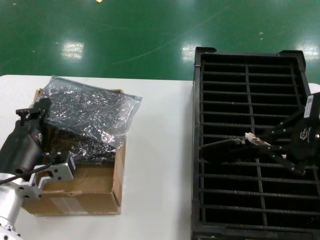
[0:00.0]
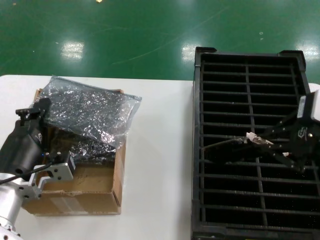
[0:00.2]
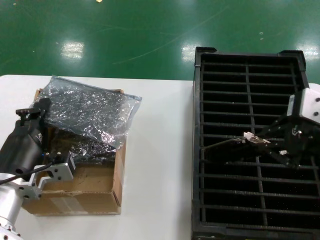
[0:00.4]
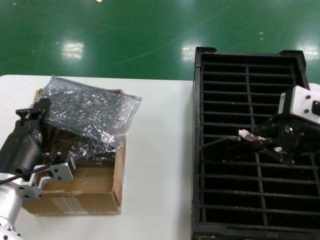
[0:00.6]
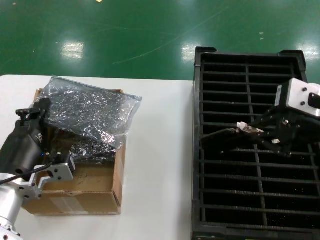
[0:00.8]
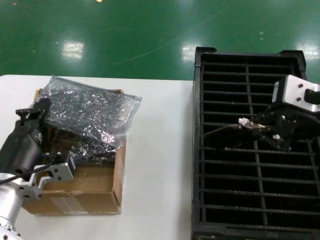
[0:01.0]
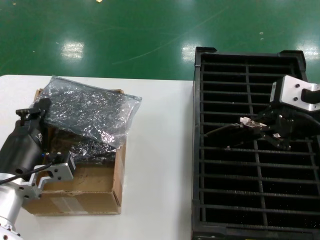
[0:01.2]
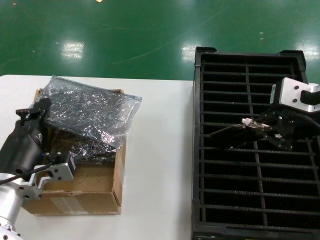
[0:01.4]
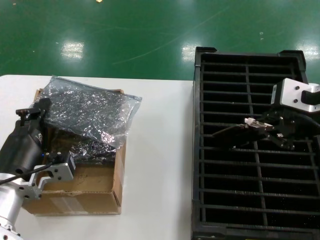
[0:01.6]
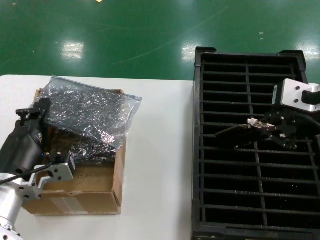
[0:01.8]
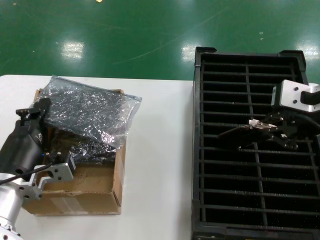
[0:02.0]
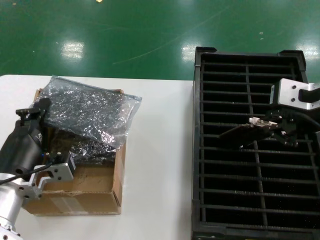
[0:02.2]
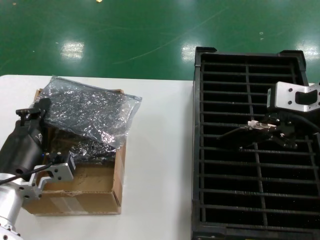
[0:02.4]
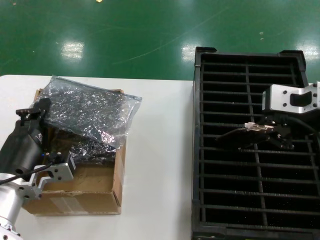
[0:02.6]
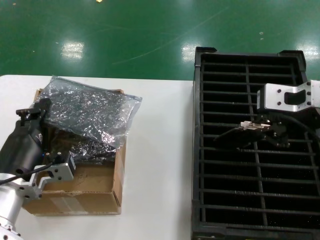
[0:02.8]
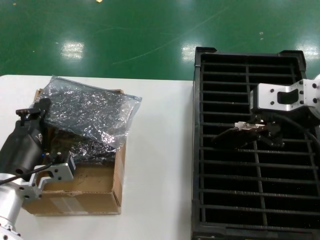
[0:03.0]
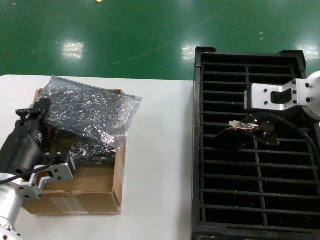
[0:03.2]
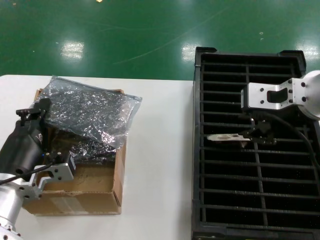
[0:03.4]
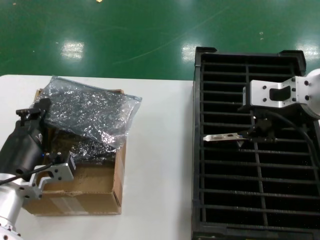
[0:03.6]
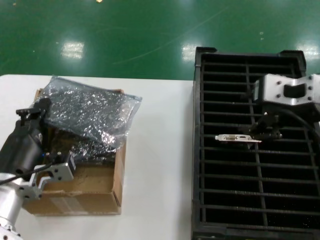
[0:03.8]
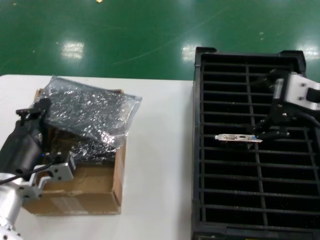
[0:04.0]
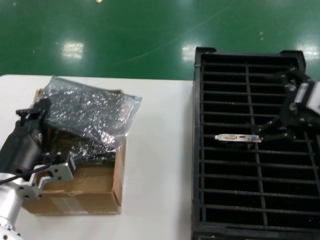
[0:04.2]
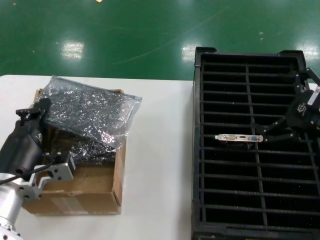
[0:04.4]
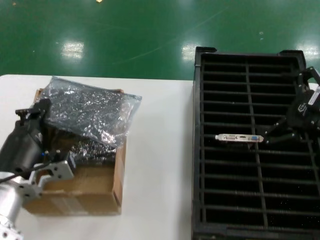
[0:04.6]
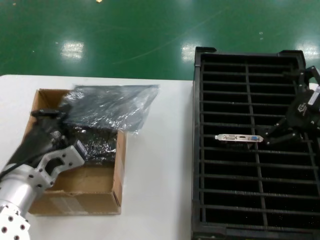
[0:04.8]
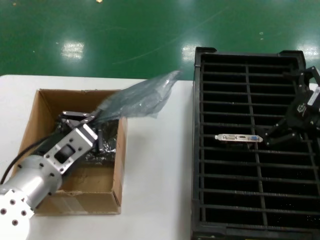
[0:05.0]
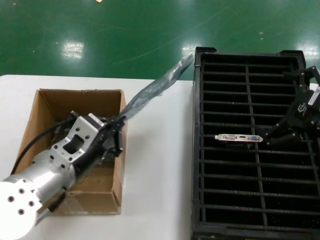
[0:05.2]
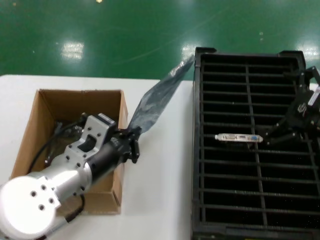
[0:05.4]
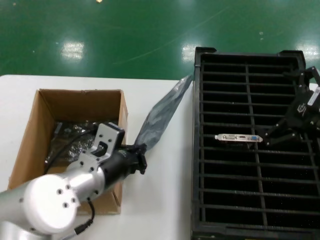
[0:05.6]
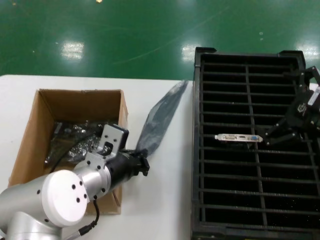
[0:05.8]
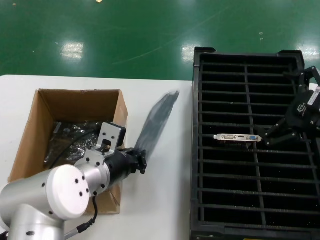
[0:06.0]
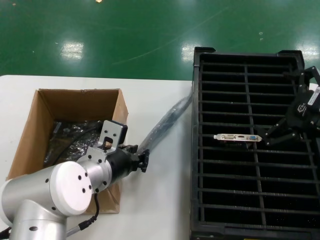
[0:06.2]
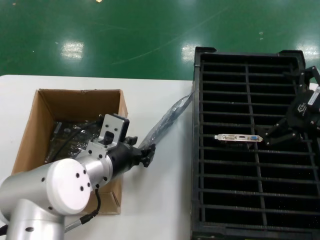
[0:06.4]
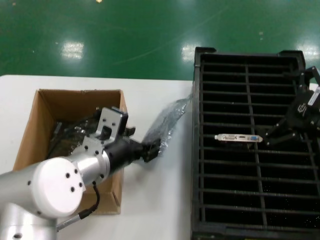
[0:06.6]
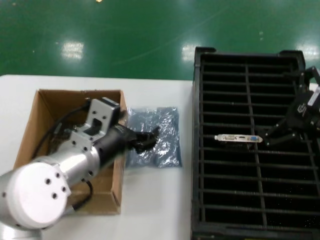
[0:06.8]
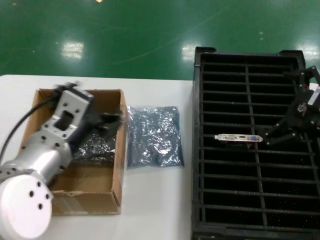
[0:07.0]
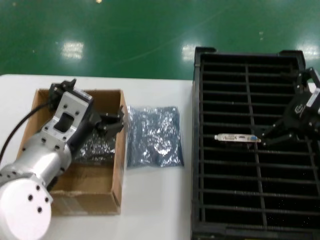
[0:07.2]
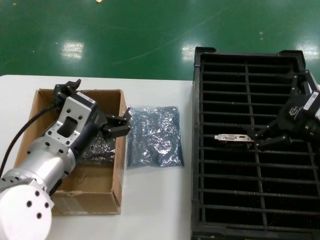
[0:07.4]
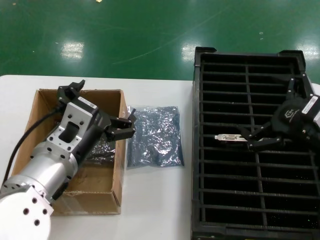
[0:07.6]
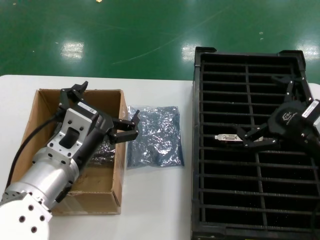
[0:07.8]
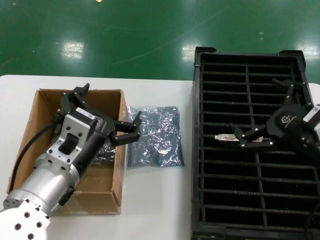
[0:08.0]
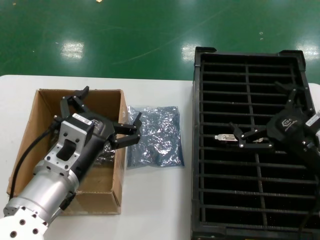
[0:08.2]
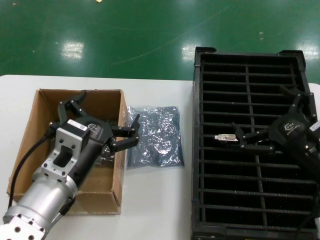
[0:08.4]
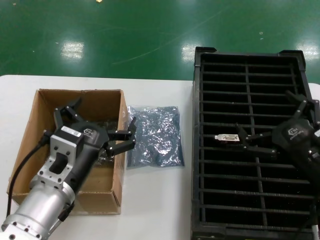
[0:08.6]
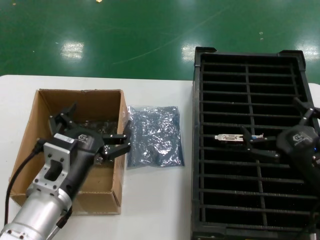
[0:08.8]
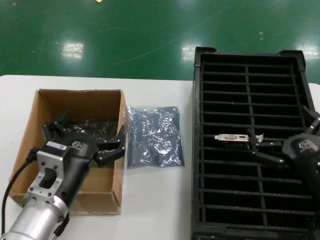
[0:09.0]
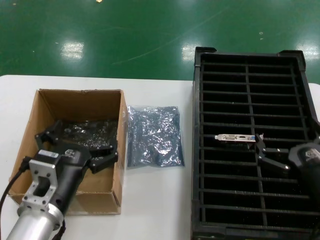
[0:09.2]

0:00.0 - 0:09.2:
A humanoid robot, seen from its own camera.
Task of the whole recording: take out graphics card from box remove packaging put into black container.
Step, 0:00.0 - 0:04.4: Place the hard disk in the hard disk enclosure.
Step, 0:04.6 - 0:08.2: Place the down the bag.
0:00.0 - 0:01.6: The right hand is displaced forward by some 5 cm.
0:01.6 - 0:03.0: The hands make only small movements.
0:03.0 - 0:04.6: The right hand goes some 10 cm to the right and downward.
0:04.6 - 0:06.2: The left hand is displaced forward and to the right by some 10 cm.
0:06.2 - 0:07.6: The left hand heads backward, covering some 5 cm.
0:07.6 - 0:09.2: The two hands go approximately 10 cm downward.
